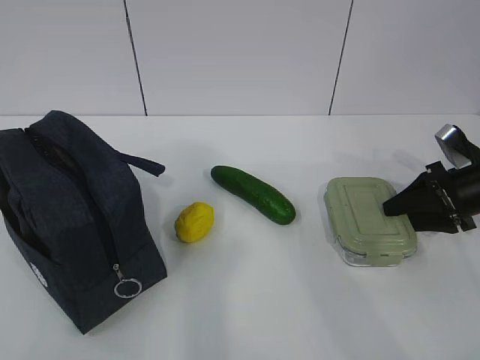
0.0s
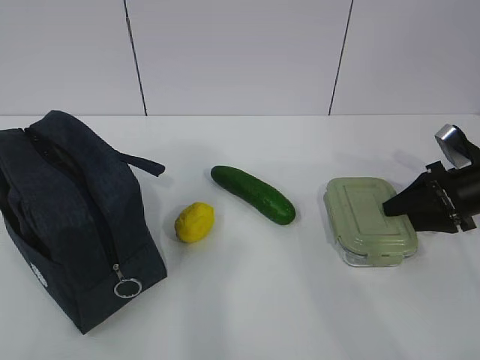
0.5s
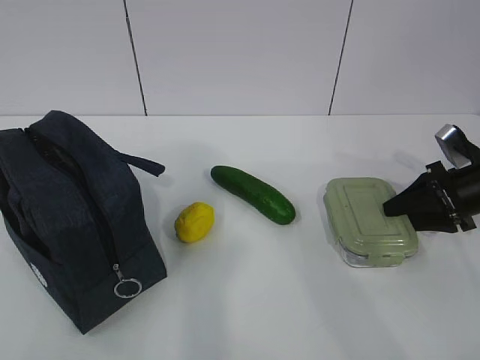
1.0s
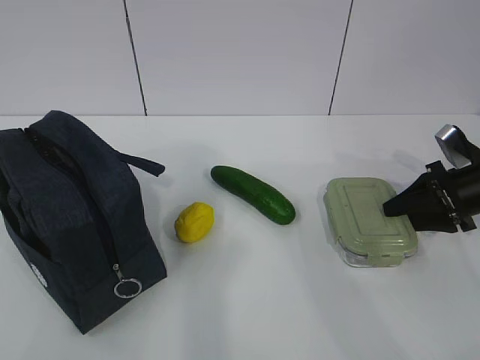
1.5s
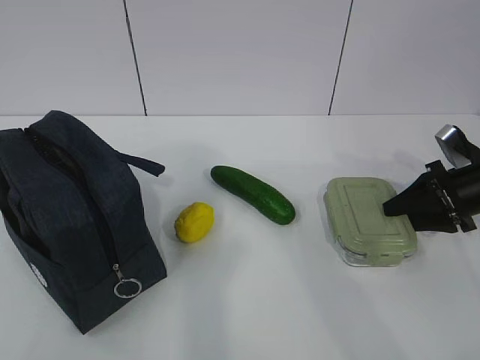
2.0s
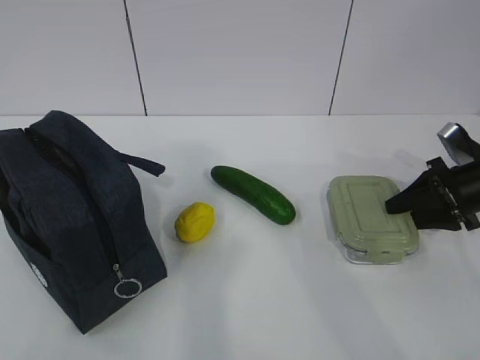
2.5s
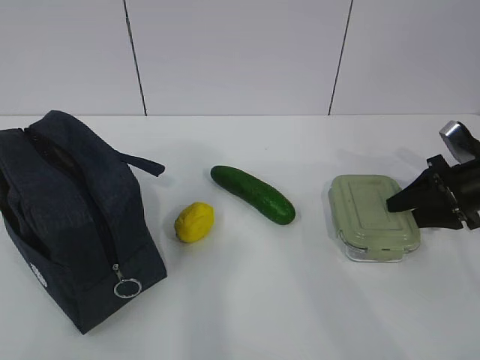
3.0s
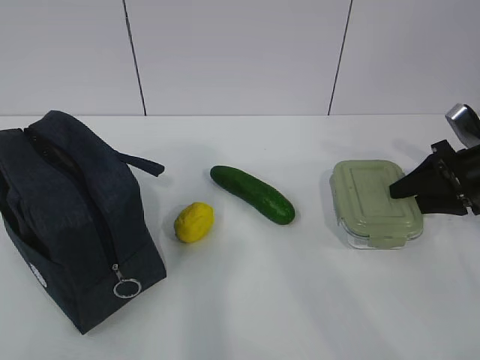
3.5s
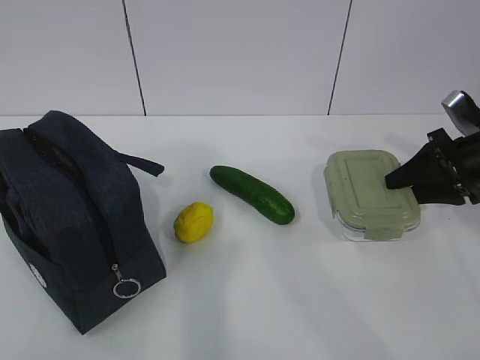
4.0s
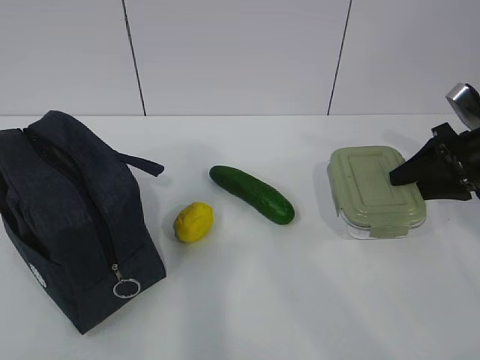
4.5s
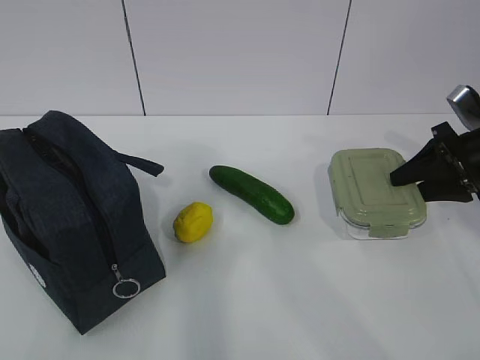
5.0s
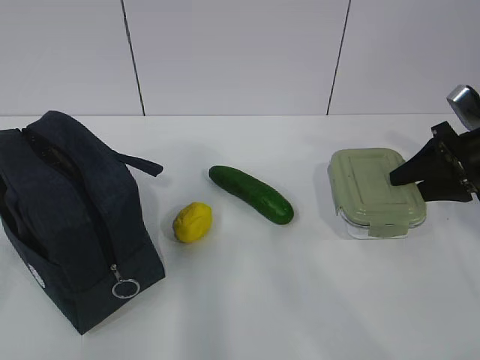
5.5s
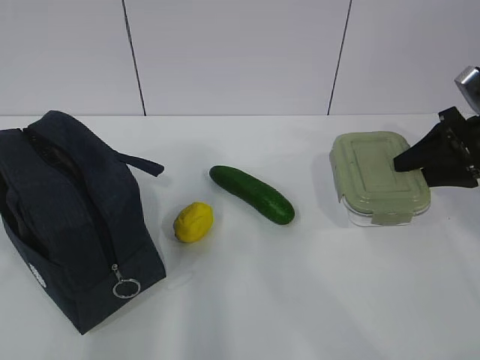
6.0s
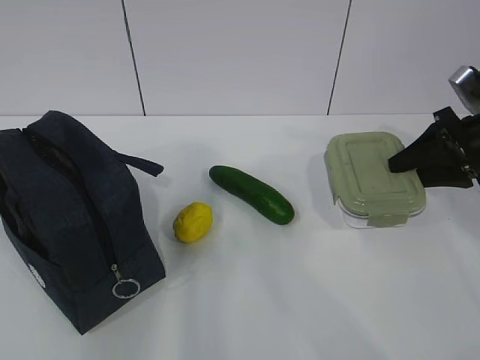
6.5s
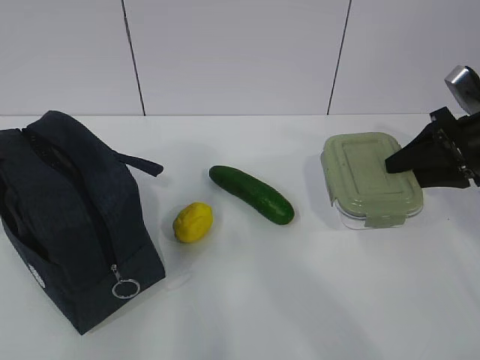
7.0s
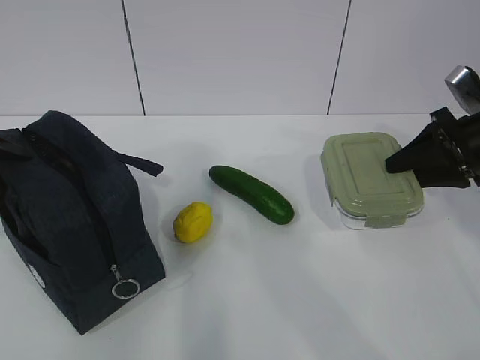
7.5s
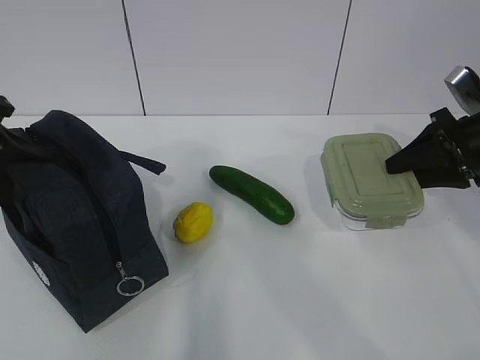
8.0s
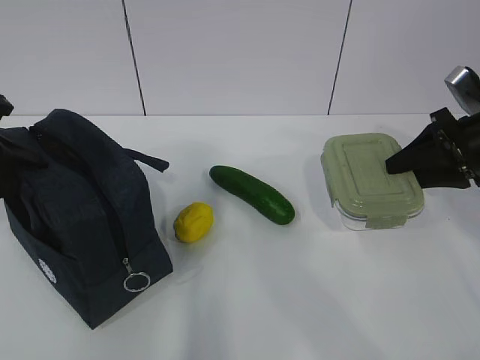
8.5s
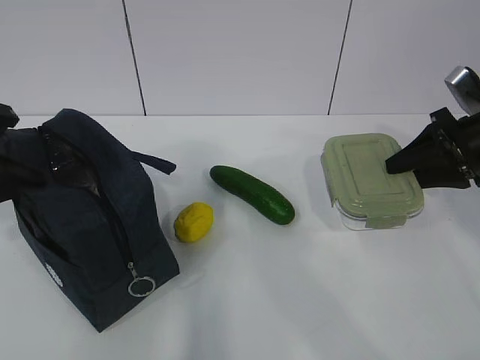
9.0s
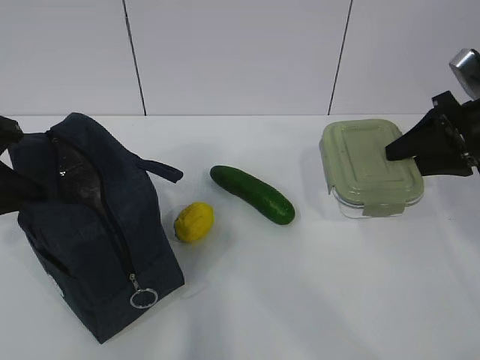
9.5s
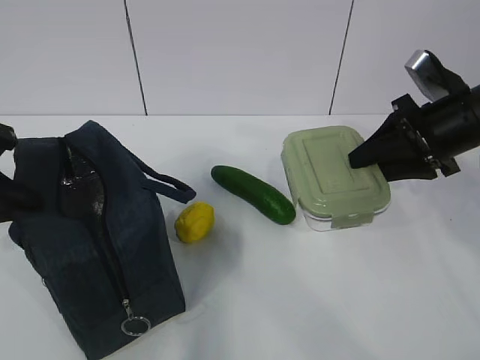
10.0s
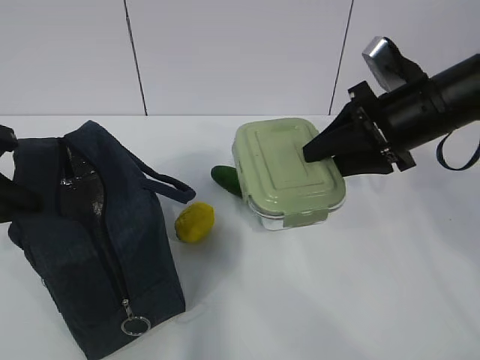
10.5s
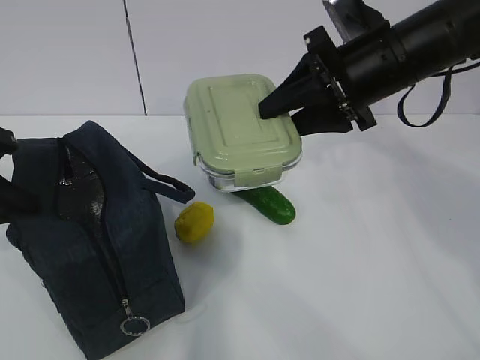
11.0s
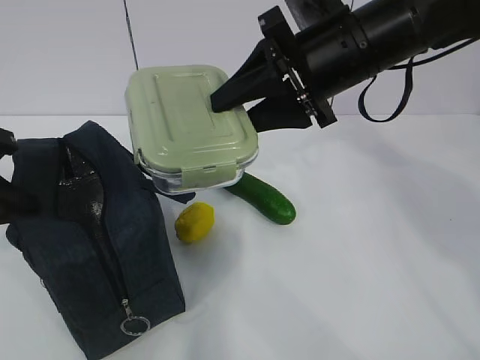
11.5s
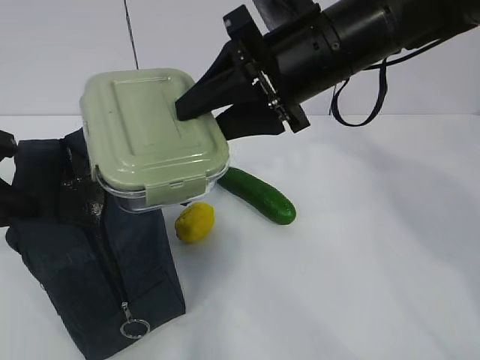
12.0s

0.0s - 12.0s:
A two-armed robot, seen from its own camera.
Step, 1.5s - 10.0s: Grasp the package with the left gripper.
0.0s - 2.0s: Neither gripper changes place.
2.0s - 4.0s: The right gripper heads upward, covering roughly 5 cm.
6.0s - 8.0s: The left gripper heads forward and downward, covering approximately 15 cm.
8.0s - 10.0s: The right gripper travels to the left by about 5 cm. The left gripper closes up.
10.0s - 12.0s: The right gripper moves to the left and upward, about 20 cm.

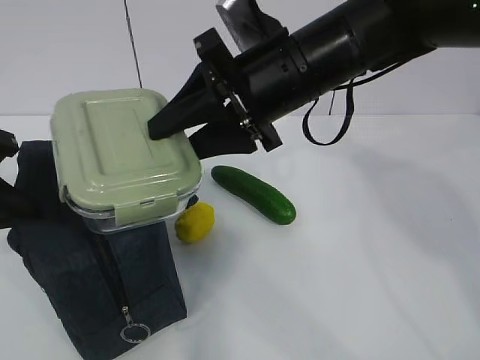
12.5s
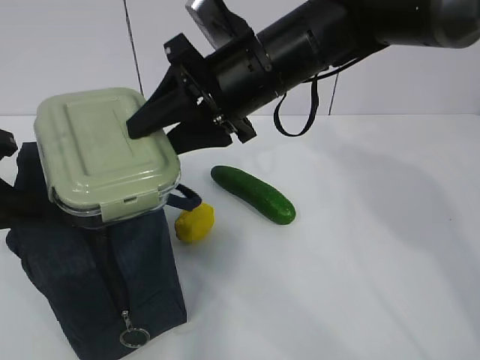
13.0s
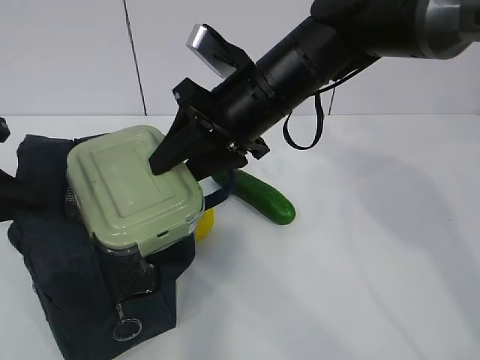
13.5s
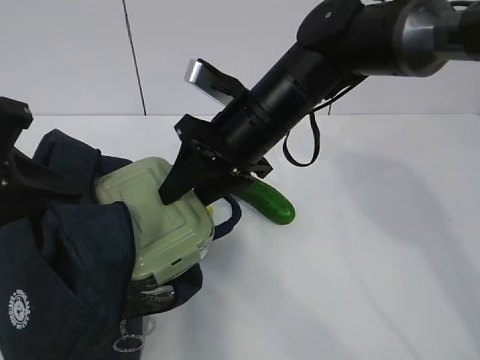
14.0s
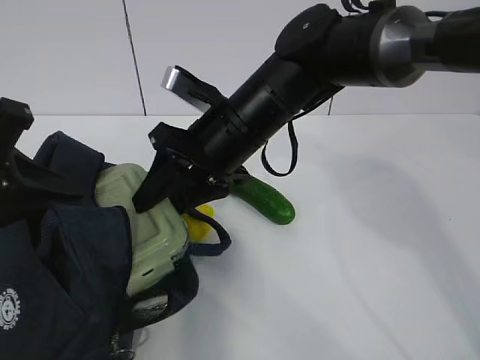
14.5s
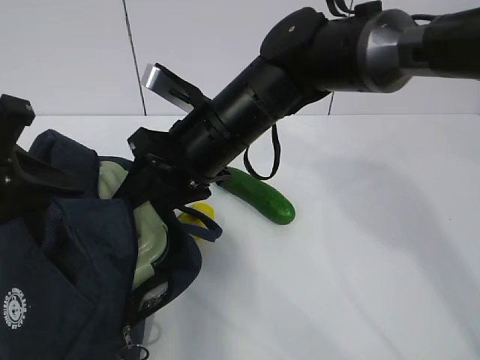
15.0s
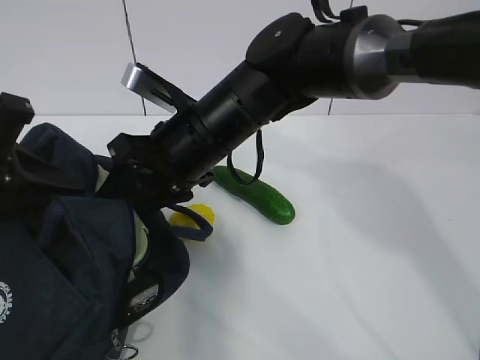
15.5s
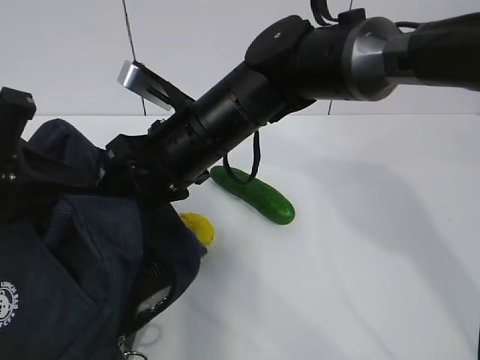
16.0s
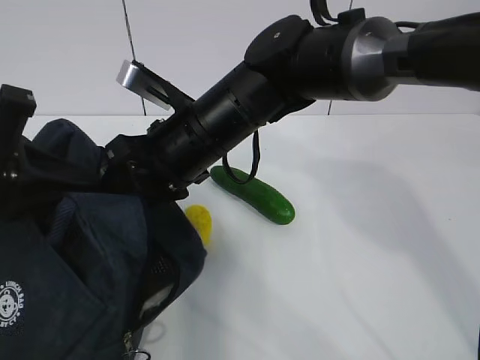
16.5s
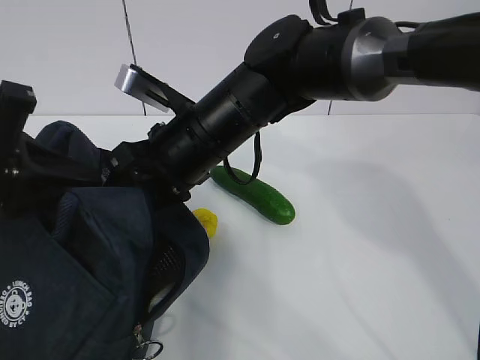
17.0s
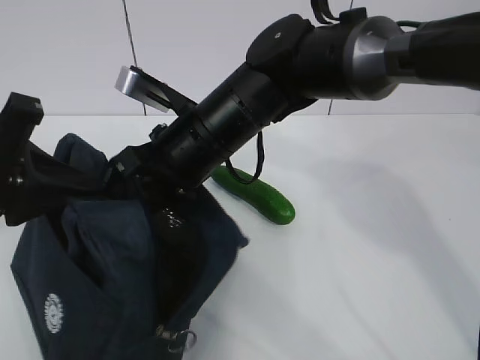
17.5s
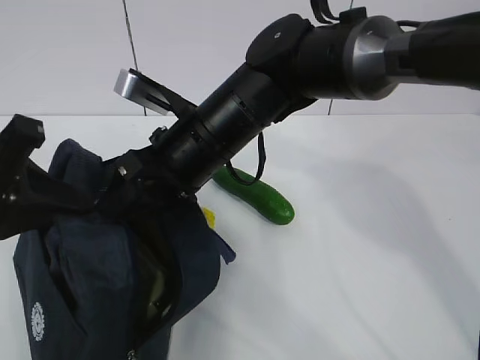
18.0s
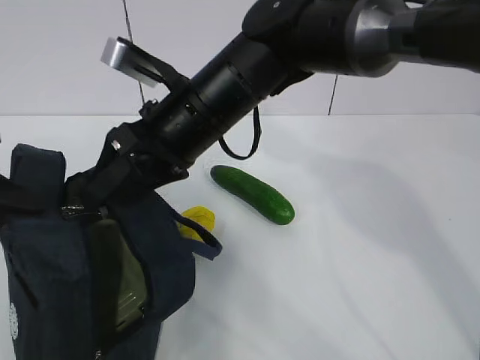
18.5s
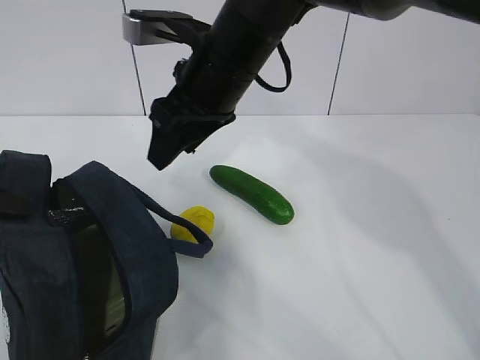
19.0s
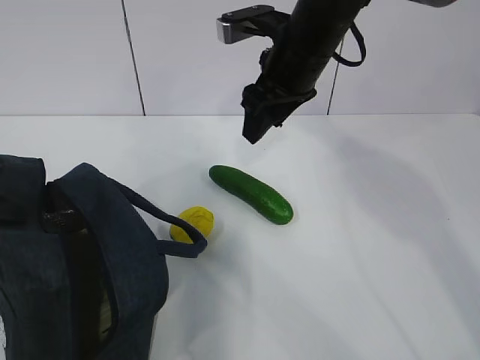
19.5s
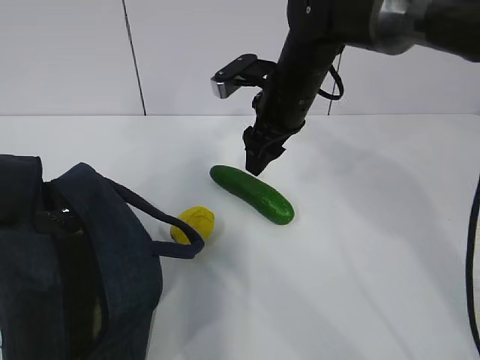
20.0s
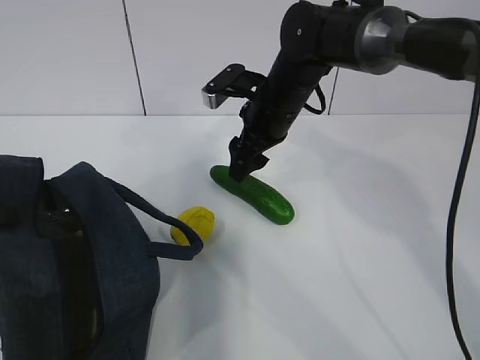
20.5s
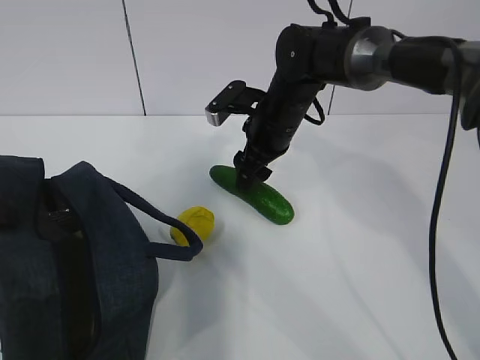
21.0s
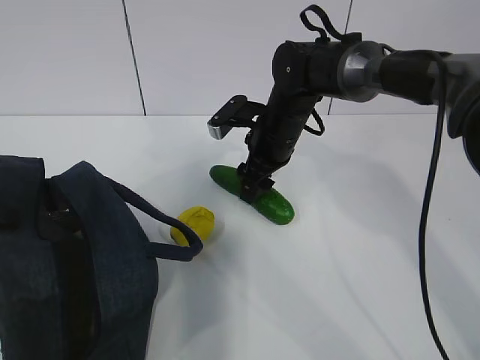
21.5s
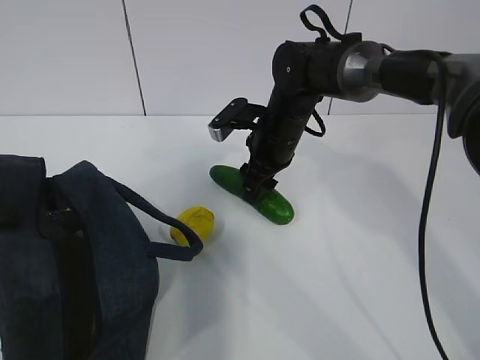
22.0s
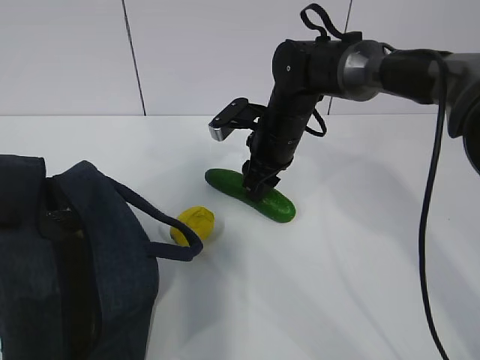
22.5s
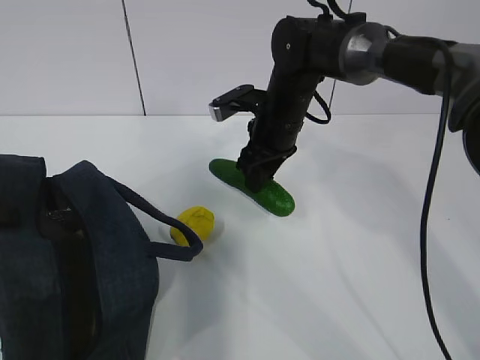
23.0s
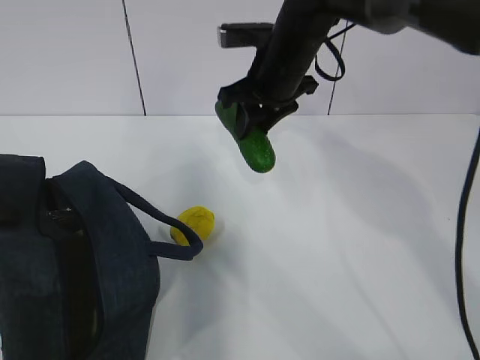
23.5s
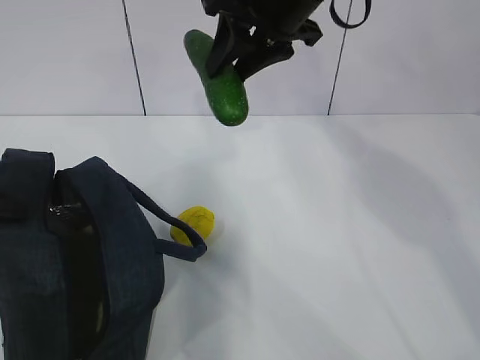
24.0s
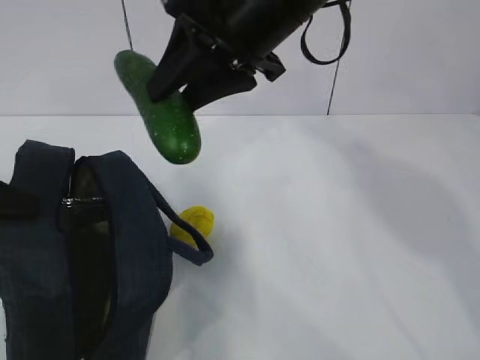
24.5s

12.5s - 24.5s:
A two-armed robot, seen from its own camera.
Step, 12.5s - 18.5s: Place the box into the package with the right gripper.
Step, 19.0s - 22.5s: Grasp the cucumber with the right gripper.
12.5s - 14.5s: The right gripper shifts approximately 5 cm downward.
14.5s - 16.5s: The grippers make only small movements.
18.5s - 20.5s: The right gripper goes some 15 cm forward, to the right and downward.
20.5s - 22.5s: The right gripper closes up.
22.5s - 24.5s: The right gripper is displaced upward and backward by roughly 25 cm.

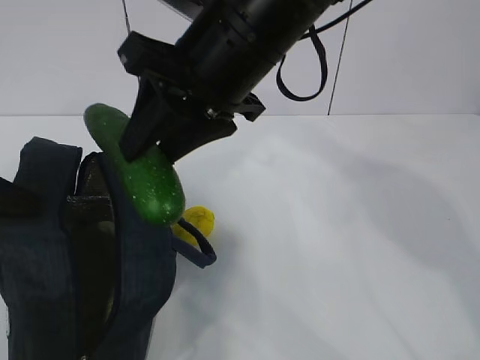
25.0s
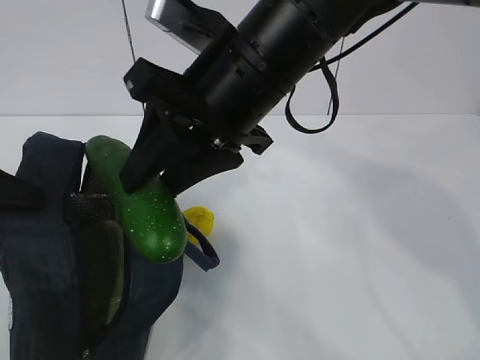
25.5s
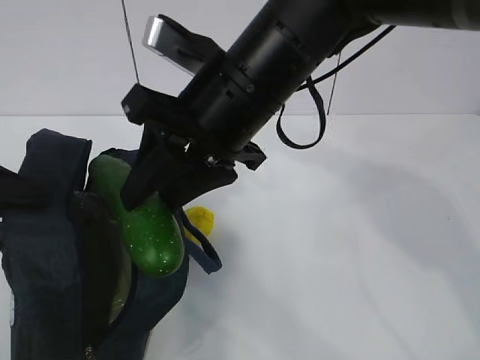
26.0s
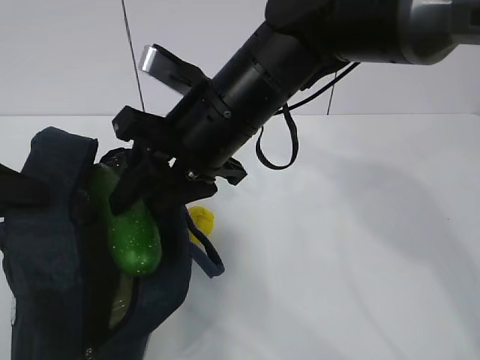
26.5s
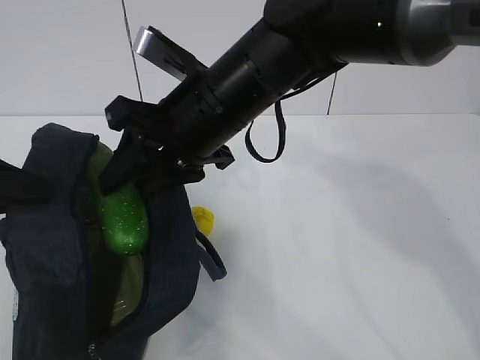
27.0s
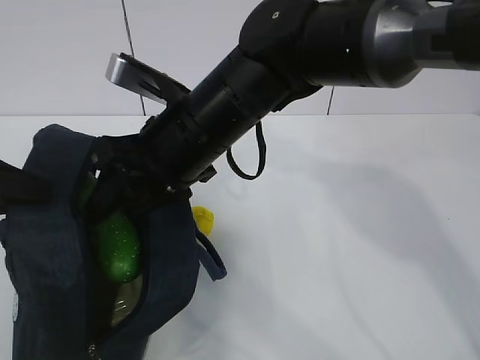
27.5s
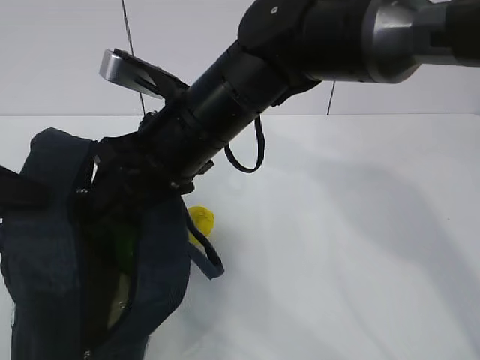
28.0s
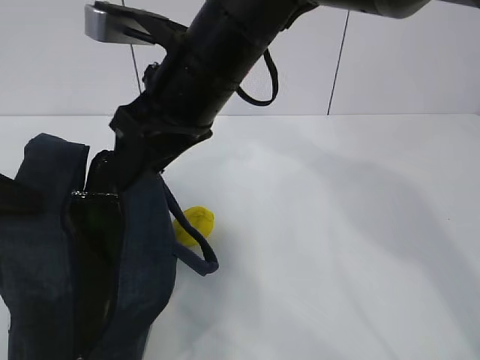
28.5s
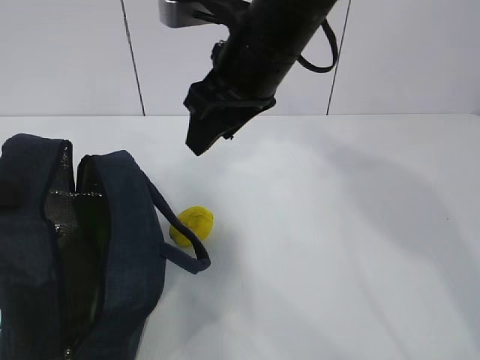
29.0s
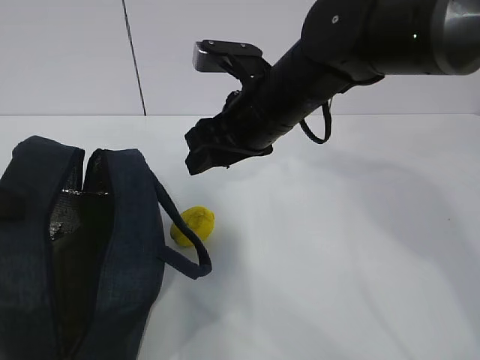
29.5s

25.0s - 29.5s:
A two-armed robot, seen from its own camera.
Step, 25.0s - 28.5s: Place the cucumber into the package with the right gripper.
25.0s - 27.0s: The right gripper travels downward by some 5 cm.
27.0s - 29.5s: The right gripper goes approximately 5 cm to the right.
